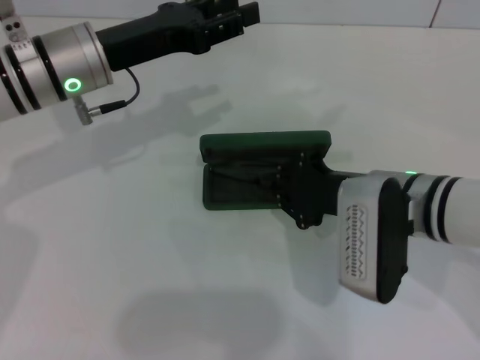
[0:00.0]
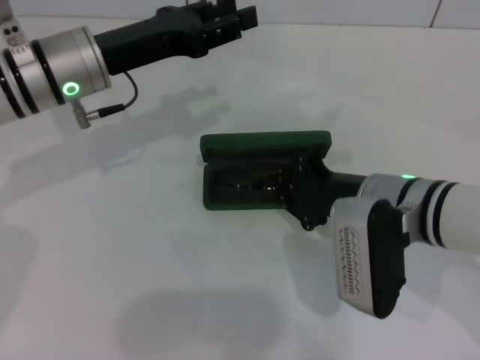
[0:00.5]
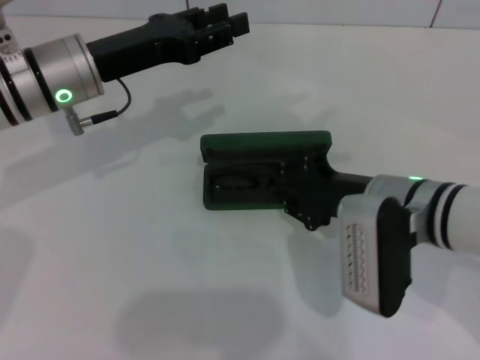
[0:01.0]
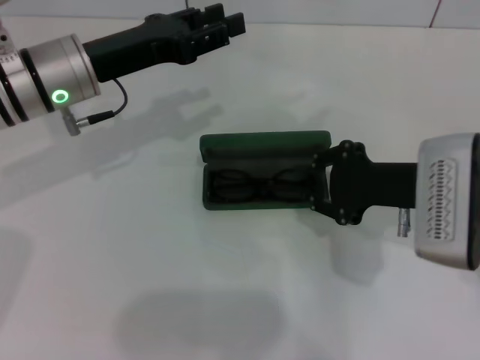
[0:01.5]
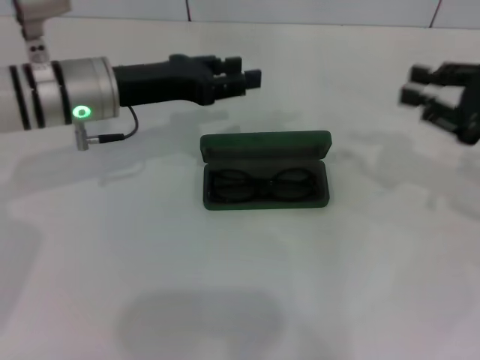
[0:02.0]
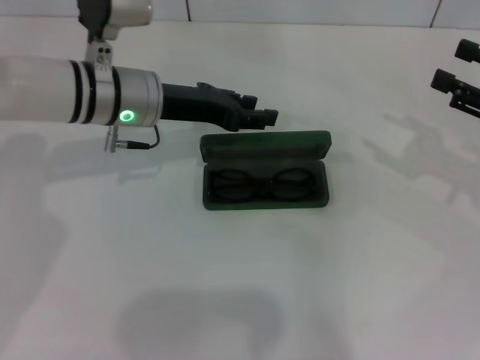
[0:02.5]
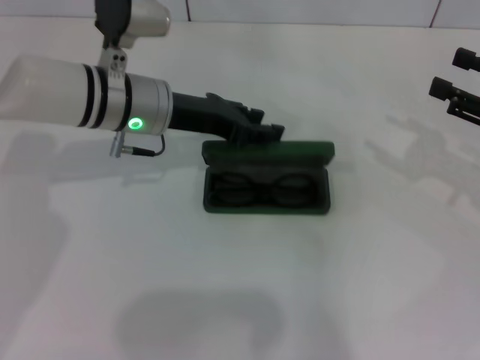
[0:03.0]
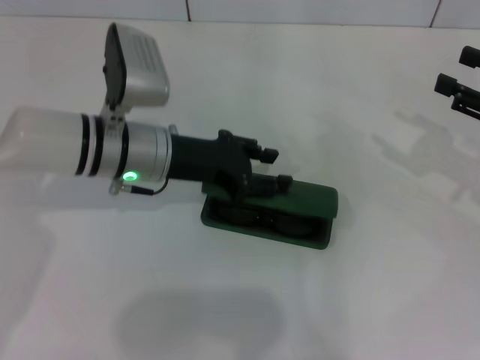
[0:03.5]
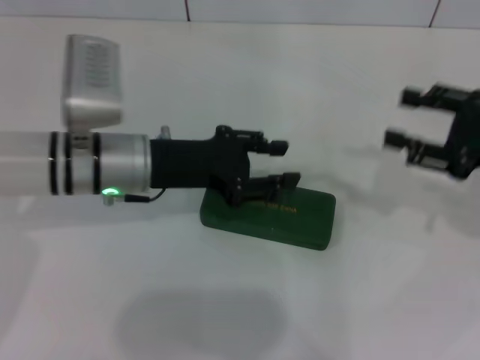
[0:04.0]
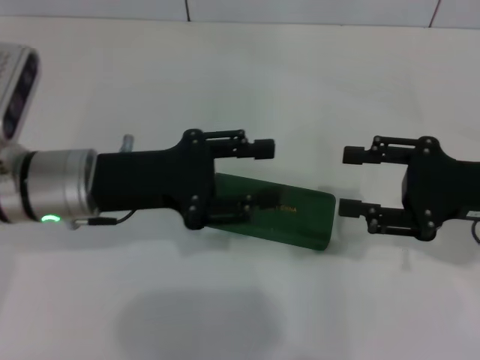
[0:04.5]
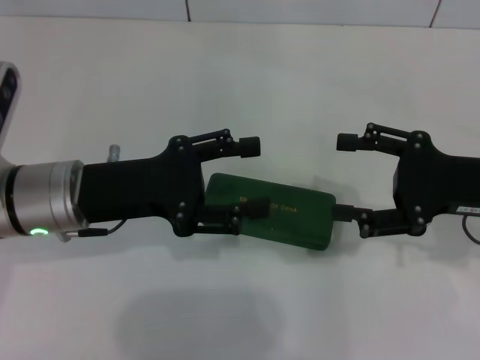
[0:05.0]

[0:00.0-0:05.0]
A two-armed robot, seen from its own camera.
Step, 0:01.5 to 0:03.5: Close the glasses case with your left hand.
0:00.0 to 0:02.5: The right gripper travels to the right by about 20 cm, and opens up; the left gripper shifts by some 5 cm.
0:02.5 to 0:05.0: The left gripper heads backward and to the left, covering about 10 cm. The right gripper moves to the left, about 10 cm.
